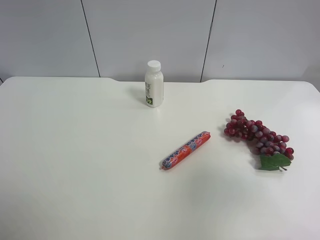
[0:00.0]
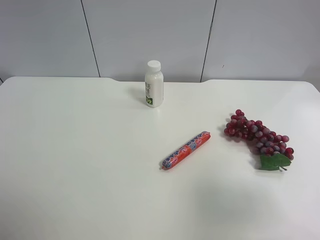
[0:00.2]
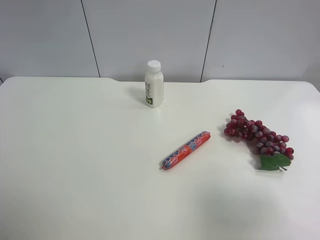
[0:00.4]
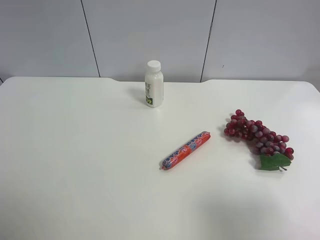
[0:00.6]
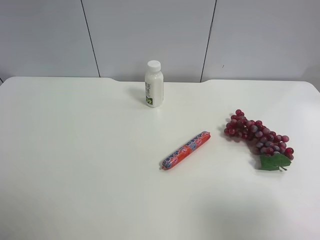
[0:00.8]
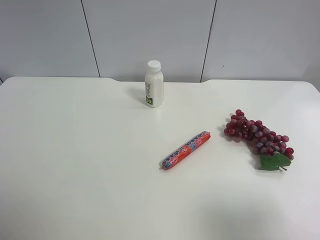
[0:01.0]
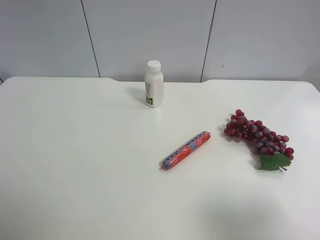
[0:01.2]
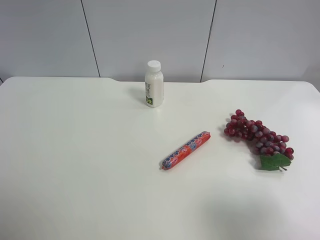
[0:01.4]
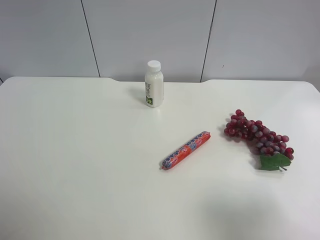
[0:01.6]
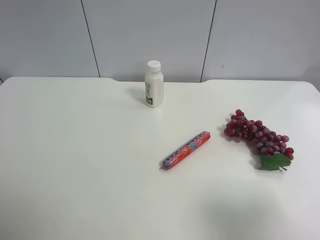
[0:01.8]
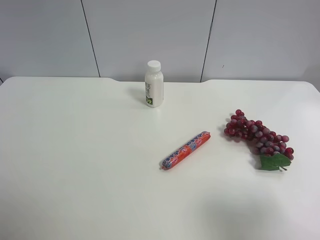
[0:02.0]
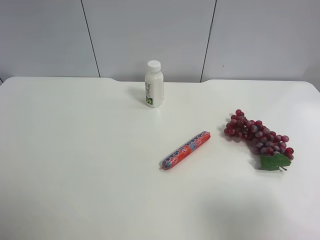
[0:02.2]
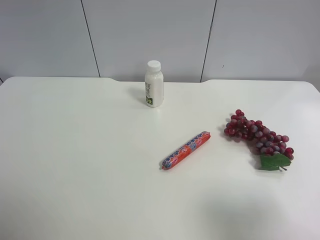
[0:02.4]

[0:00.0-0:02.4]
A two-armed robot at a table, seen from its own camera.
Task of the whole recording: use the left gripper to pick up the item and transfer it from the left gripper to the right gripper.
0:00.0 to 0:01.2: The right gripper travels backward and downward by roughly 10 cm.
0:01.2 to 0:02.4: Both grippers stay put.
